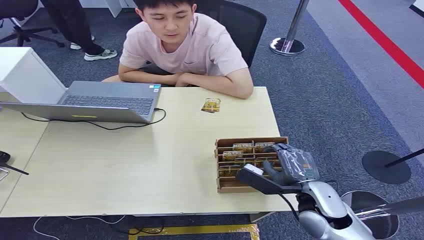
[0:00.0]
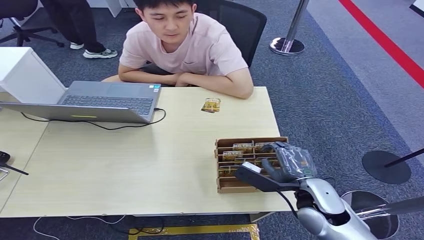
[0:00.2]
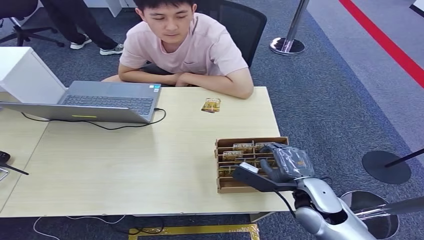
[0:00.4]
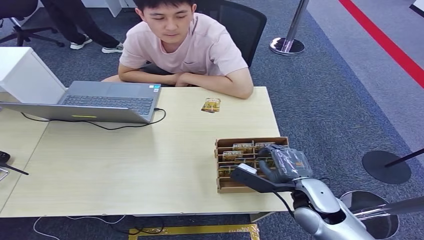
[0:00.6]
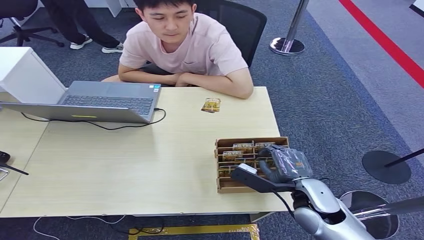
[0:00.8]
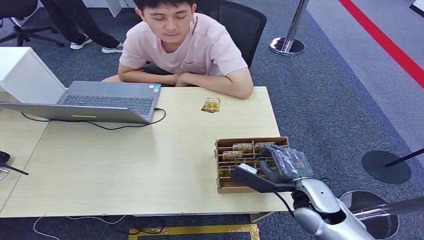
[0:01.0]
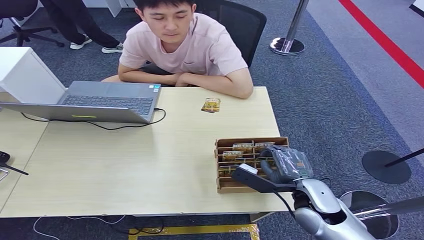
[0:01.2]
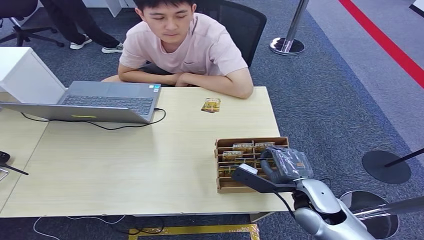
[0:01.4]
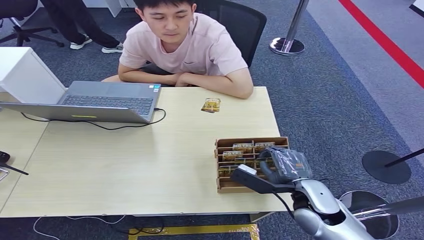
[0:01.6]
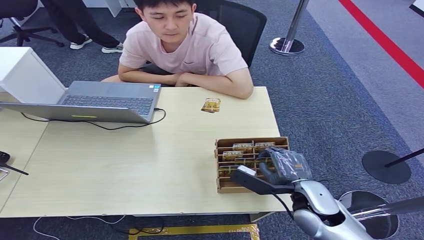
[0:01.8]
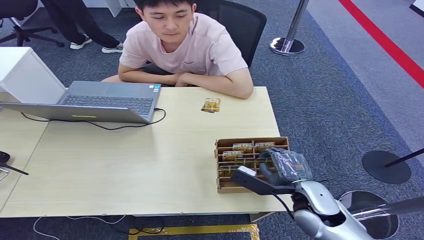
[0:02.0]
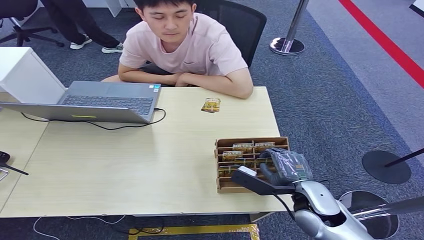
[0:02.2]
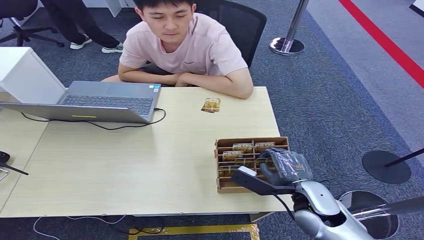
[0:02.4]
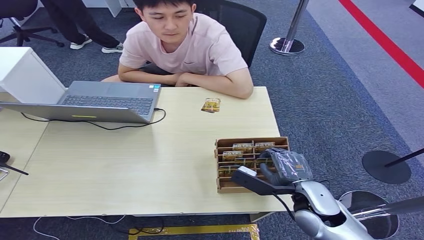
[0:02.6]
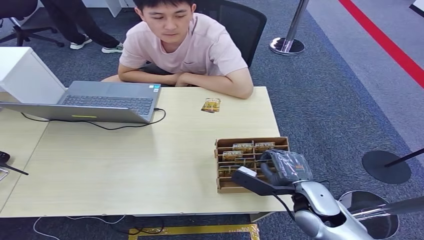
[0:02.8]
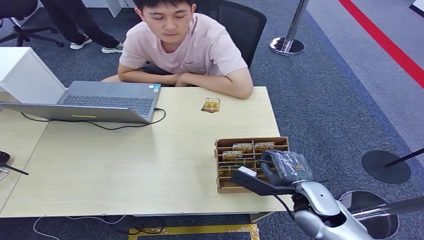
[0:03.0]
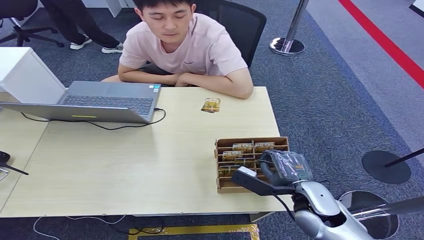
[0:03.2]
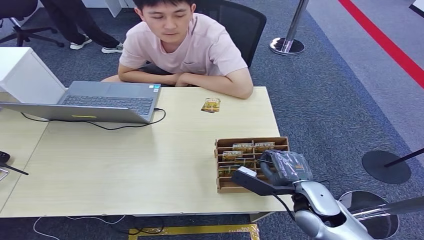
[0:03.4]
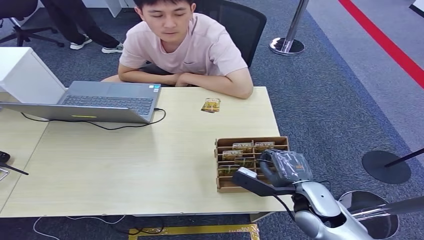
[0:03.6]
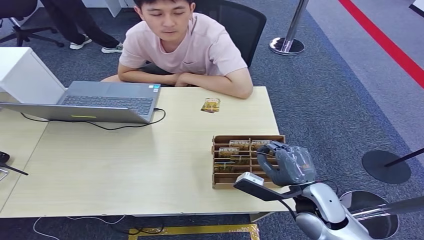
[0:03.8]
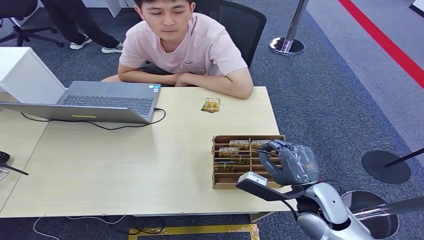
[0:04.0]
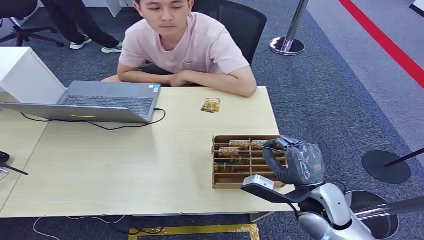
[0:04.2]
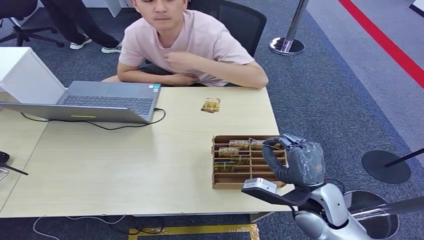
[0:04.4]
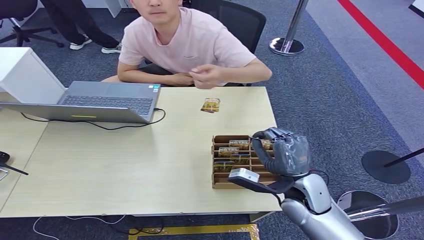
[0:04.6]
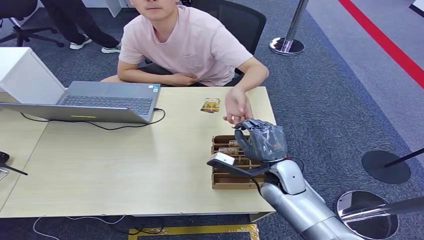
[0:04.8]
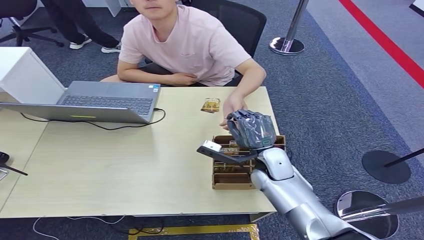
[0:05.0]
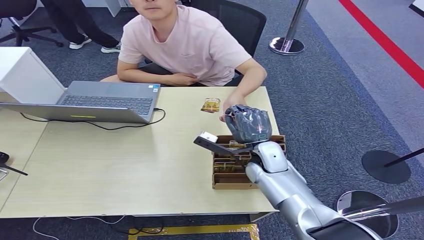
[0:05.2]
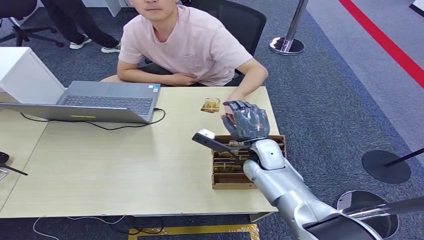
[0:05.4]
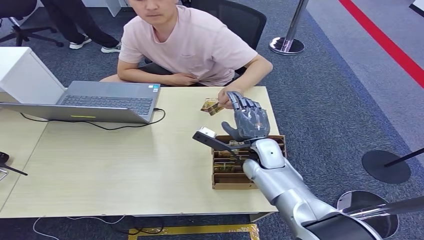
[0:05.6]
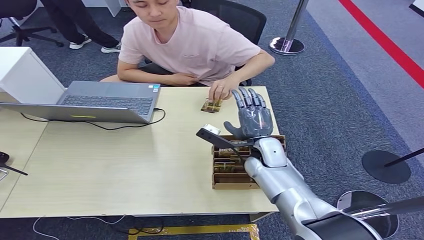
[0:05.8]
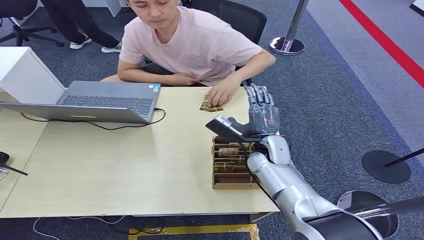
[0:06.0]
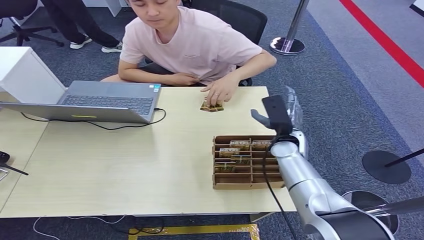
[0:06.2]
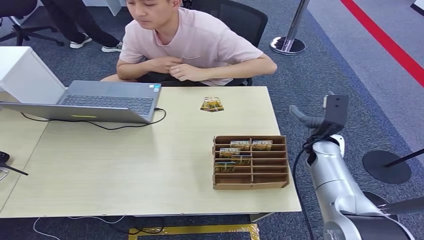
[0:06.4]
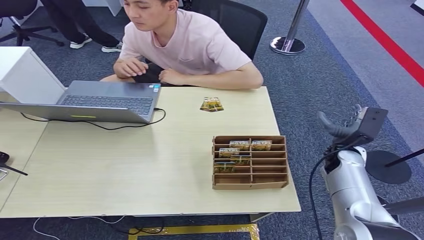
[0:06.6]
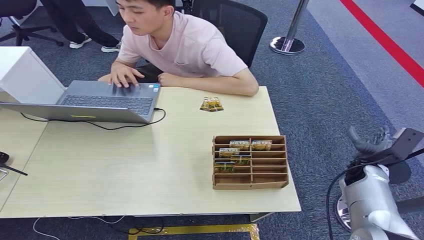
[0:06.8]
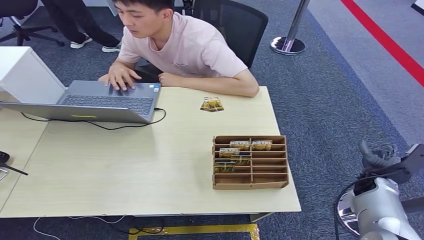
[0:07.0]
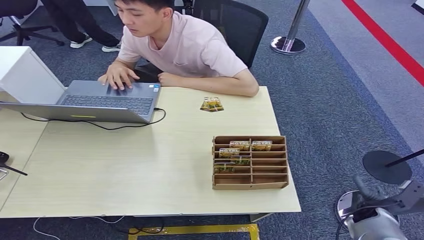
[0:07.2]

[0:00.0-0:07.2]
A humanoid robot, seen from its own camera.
Step, 0:00.0 to 0:04.2: Pick up the room card from the card holder.
Step, 0:04.4 to 0:07.2: Hand the room card to the target.
0:01.4 to 0:02.8: The two hands keep their place.
0:04.4 to 0:05.8: The right hand is displaced forward and to the left by about 15 cm.
0:05.8 to 0:07.2: The right hand moves to the right, downward and backward, approximately 35 cm.
